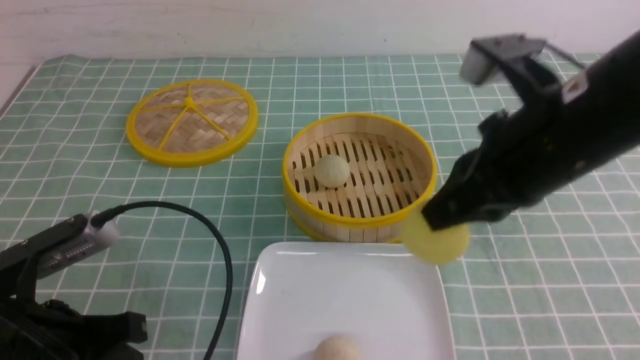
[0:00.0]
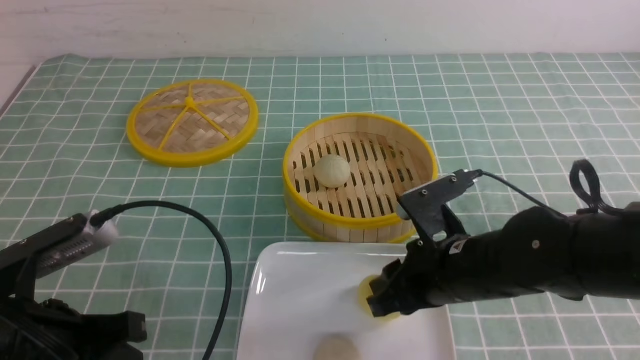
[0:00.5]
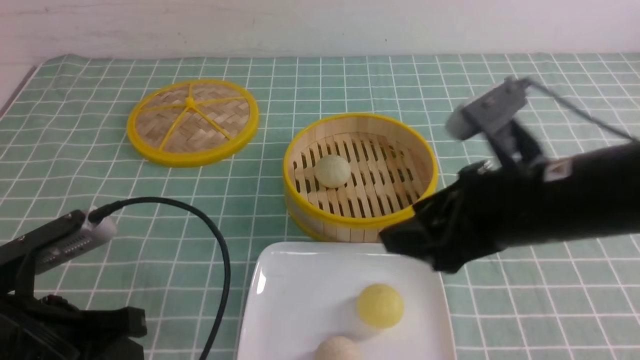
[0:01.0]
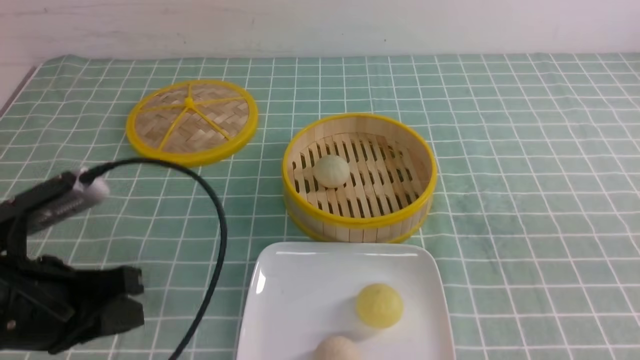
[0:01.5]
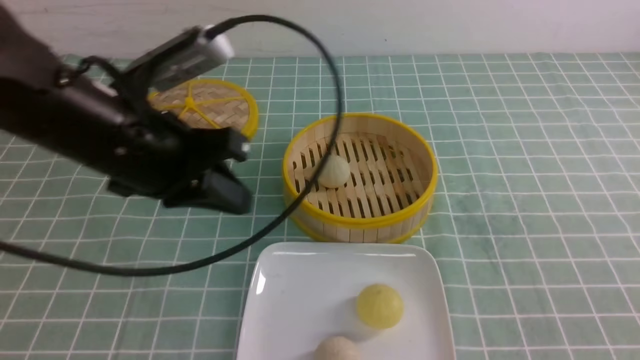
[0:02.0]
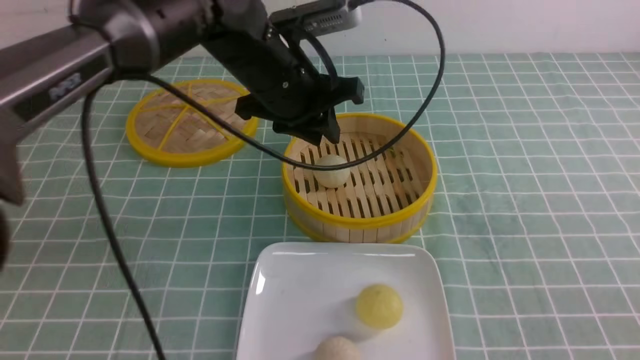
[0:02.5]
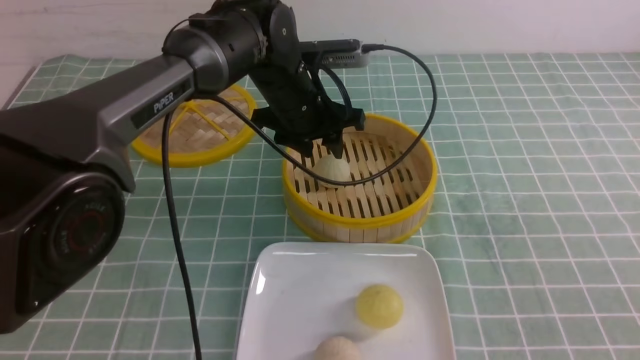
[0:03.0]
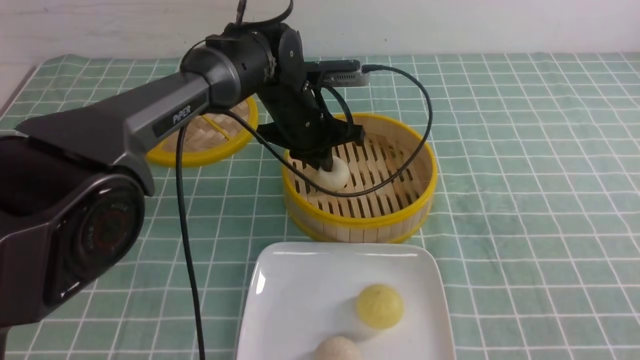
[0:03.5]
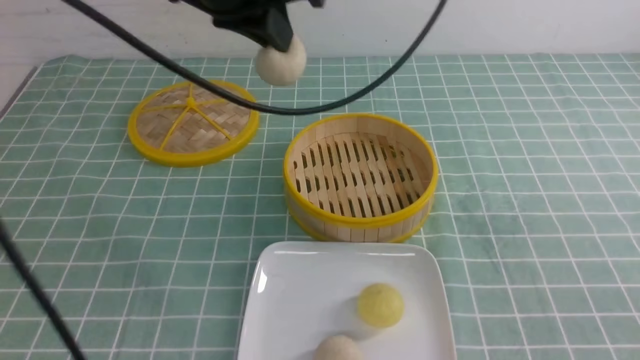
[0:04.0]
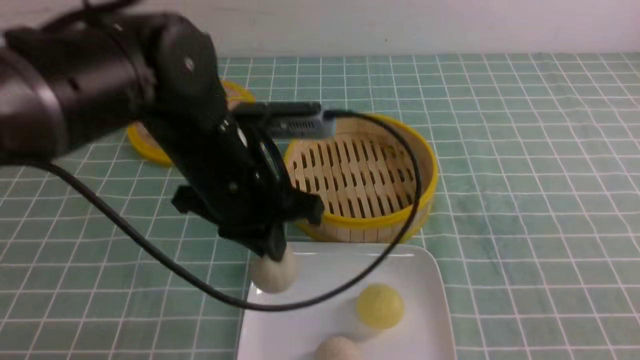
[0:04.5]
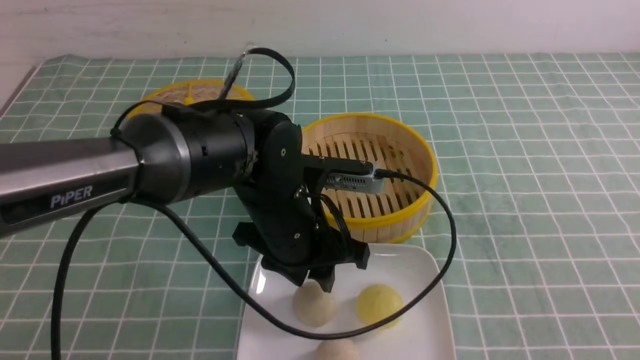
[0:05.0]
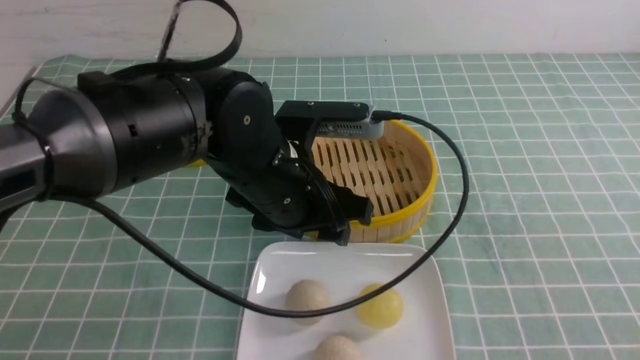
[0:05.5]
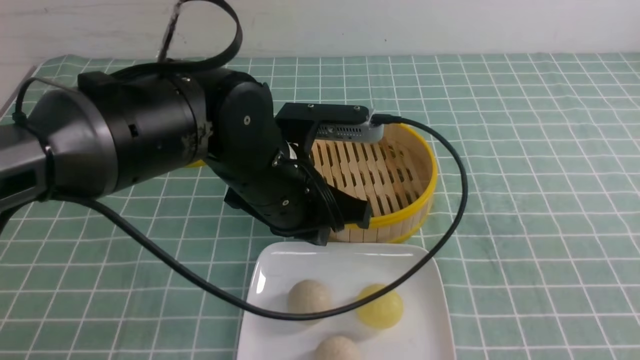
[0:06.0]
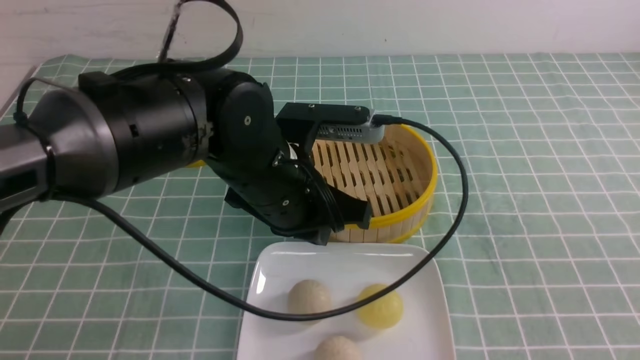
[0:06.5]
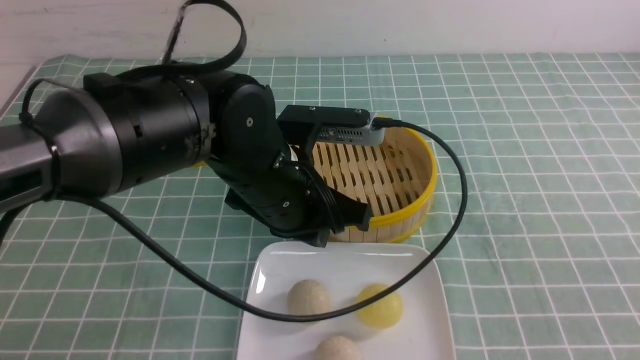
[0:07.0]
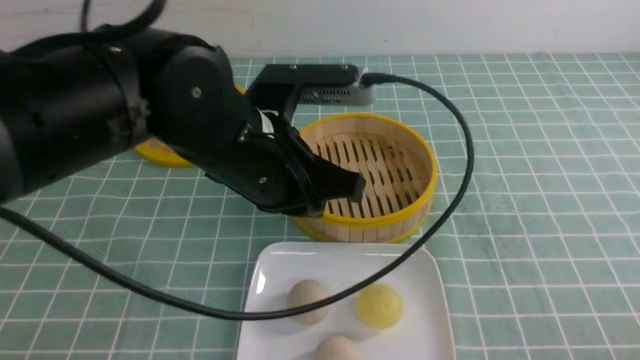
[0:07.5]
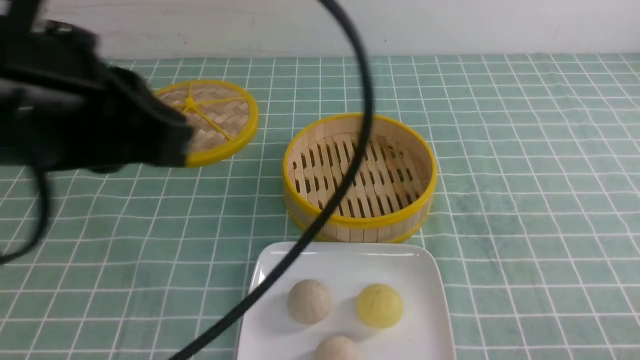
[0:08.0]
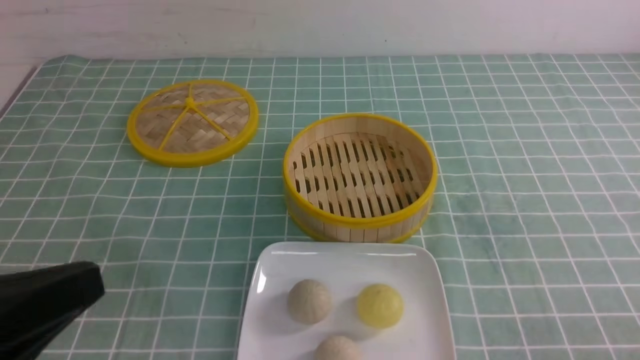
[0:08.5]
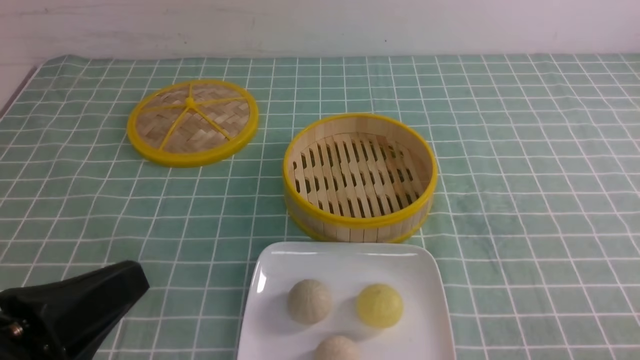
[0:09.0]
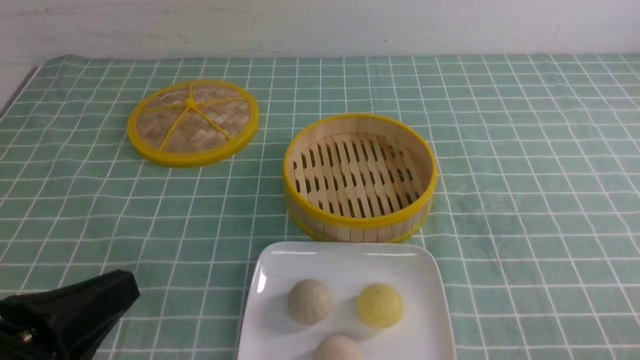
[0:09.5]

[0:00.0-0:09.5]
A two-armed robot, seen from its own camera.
Step, 0:01.0 to 0:03.5: use the left arm to grab the steamed stuffed bun that is closest to it.
Step, 0:04.0 to 0:05.0: use the left arm to put the steamed stuffed bun into the plate.
0:00.0 to 0:02.0: The right gripper swings up and down, about 20 cm each way, with 2 reversals, and opens, then closes once more; the left gripper shifts some 20 cm forward, upward and to the right.
0:02.0 to 0:04.0: The left gripper is displaced upward, to the right and forward by about 15 cm, and opens, then closes once more.
0:04.0 to 0:05.5: The left gripper shifts about 15 cm downward, and opens its fingers. Meanwhile the right gripper travels backward by some 5 cm.
0:05.5 to 0:07.5: The right gripper heads downward, covering about 10 cm, while the left gripper goes approximately 5 cm upward, and closes up.
0:07.5 to 0:09.5: The left gripper heads backward and to the left, covering about 25 cm.

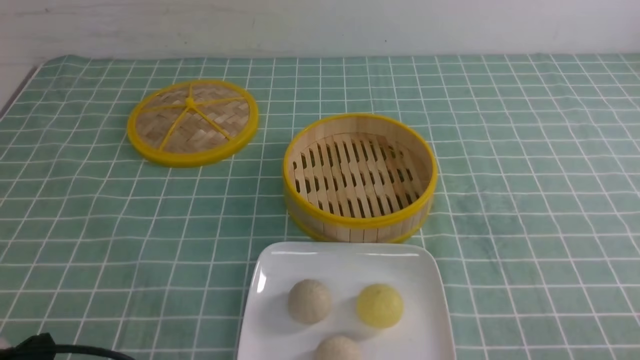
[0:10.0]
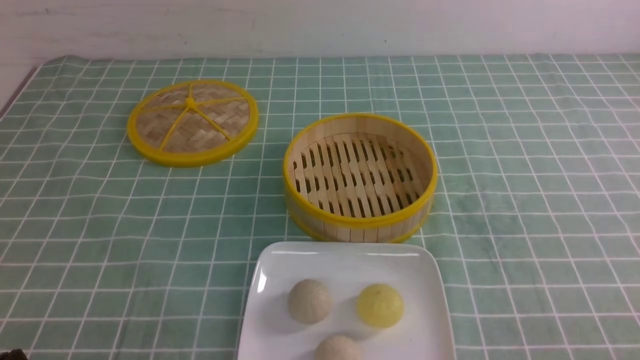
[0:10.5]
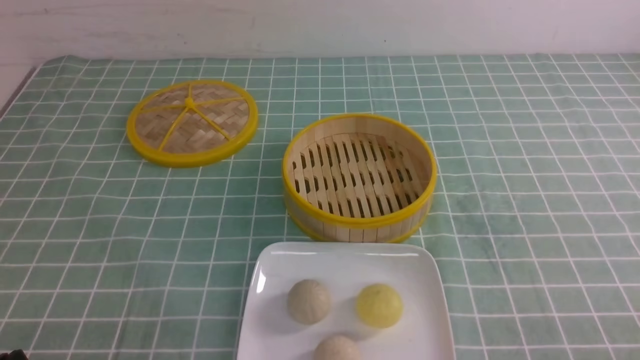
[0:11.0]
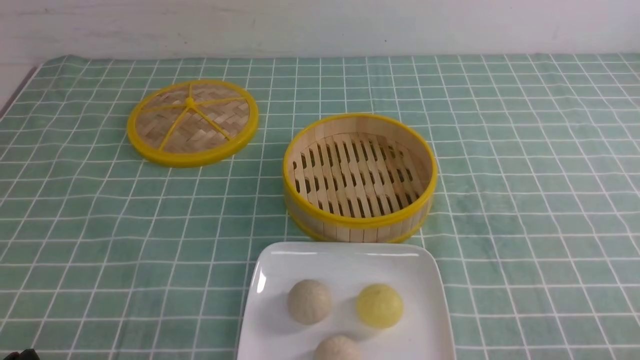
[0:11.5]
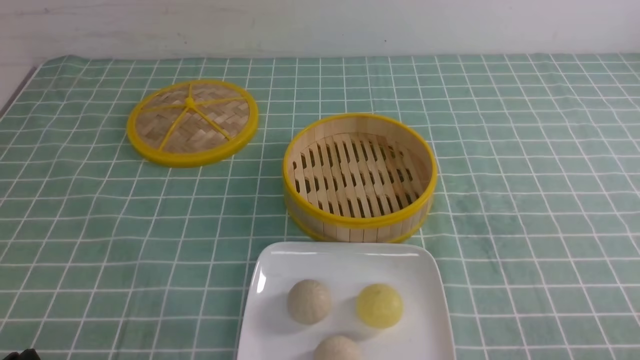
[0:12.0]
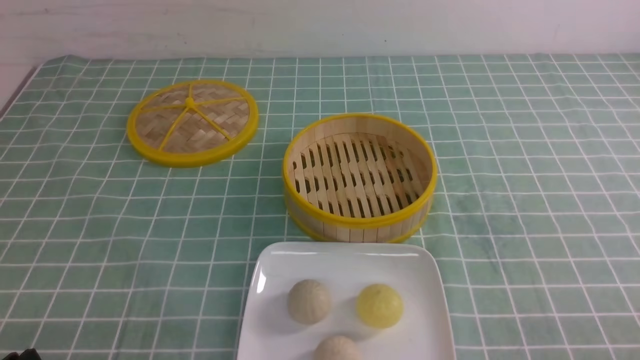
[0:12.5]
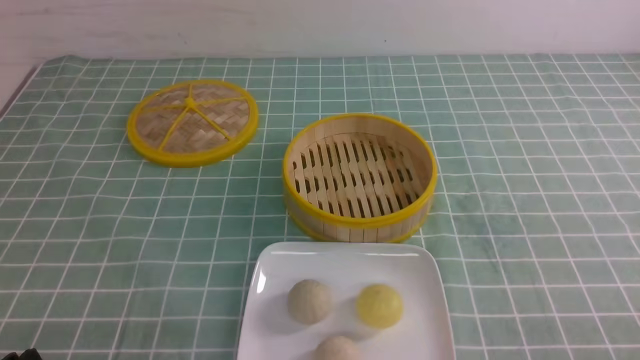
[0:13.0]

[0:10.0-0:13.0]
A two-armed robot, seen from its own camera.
0:11.5 to 0:13.0: The two grippers keep their place.
